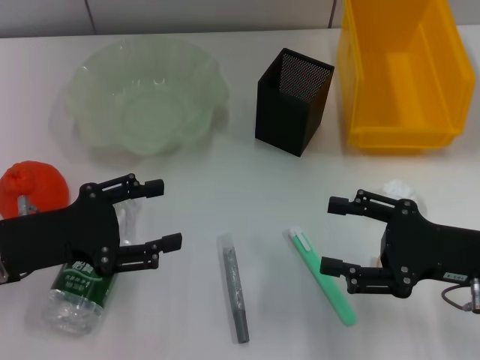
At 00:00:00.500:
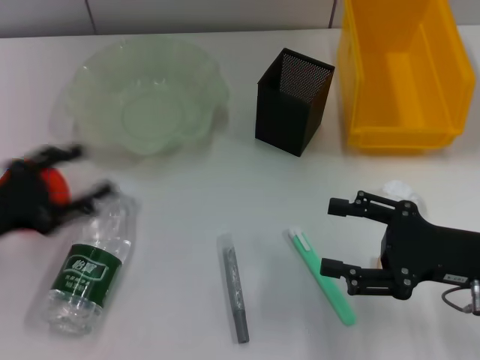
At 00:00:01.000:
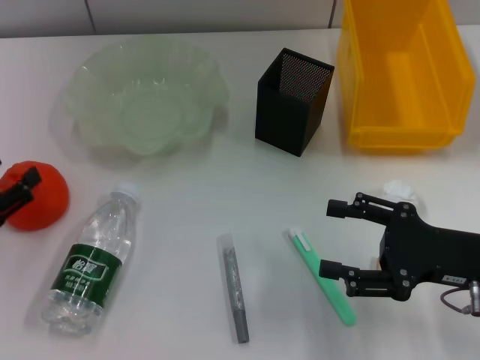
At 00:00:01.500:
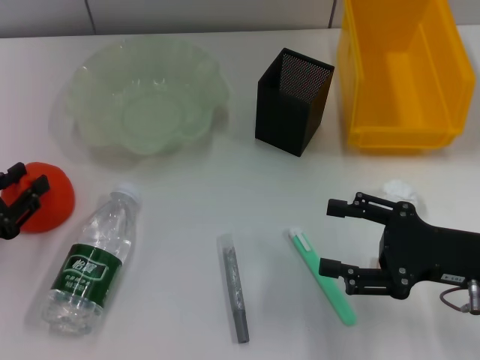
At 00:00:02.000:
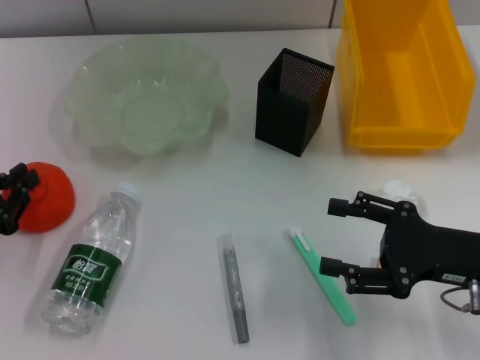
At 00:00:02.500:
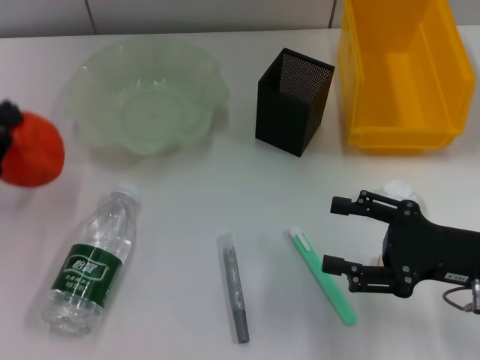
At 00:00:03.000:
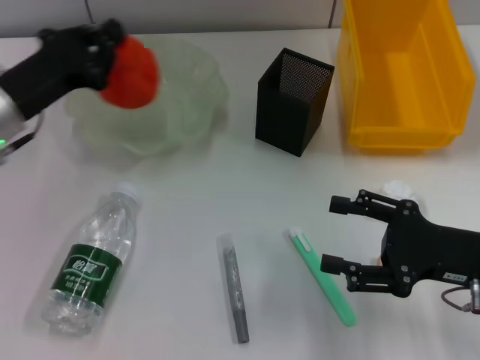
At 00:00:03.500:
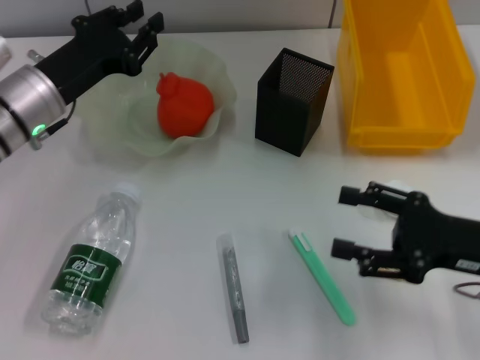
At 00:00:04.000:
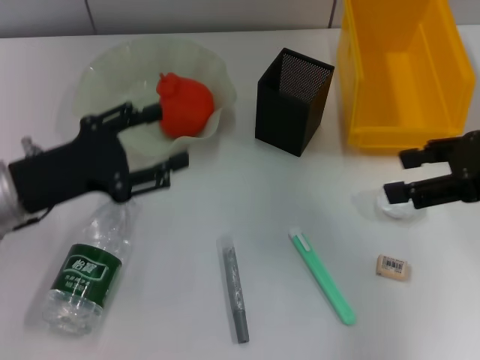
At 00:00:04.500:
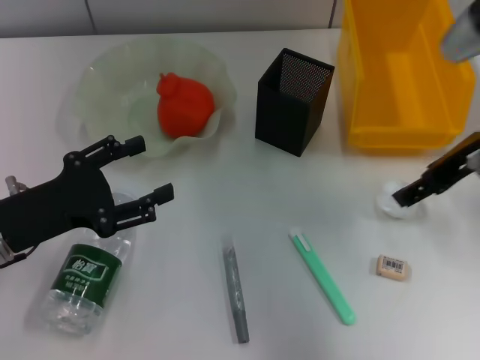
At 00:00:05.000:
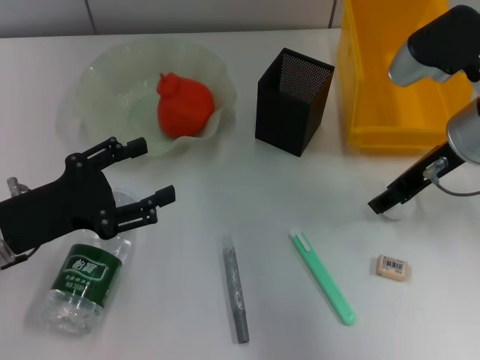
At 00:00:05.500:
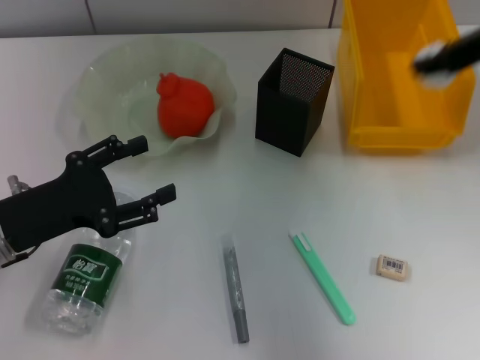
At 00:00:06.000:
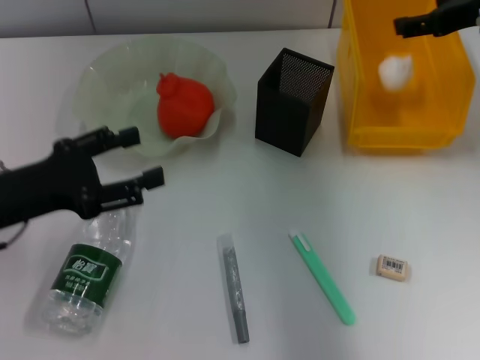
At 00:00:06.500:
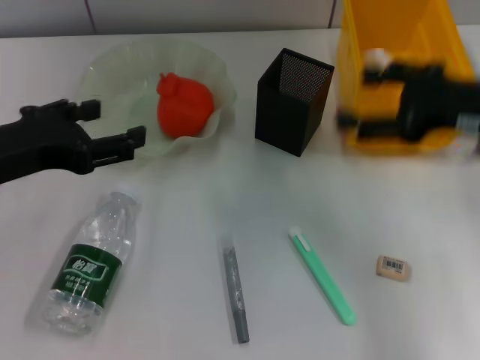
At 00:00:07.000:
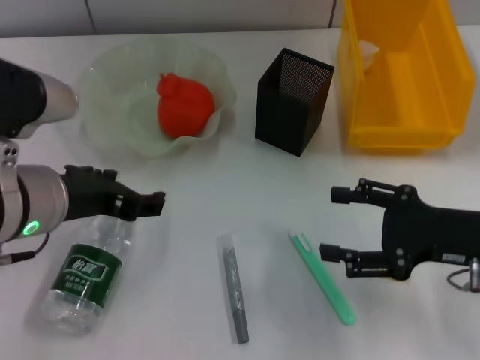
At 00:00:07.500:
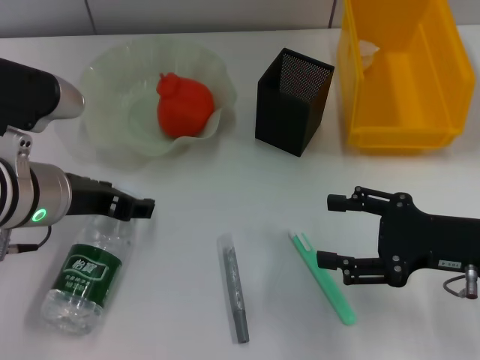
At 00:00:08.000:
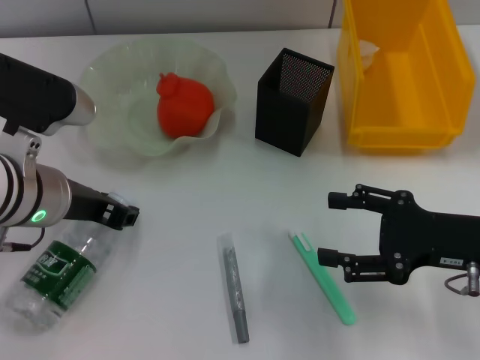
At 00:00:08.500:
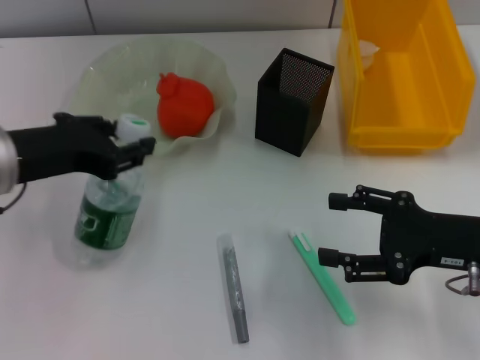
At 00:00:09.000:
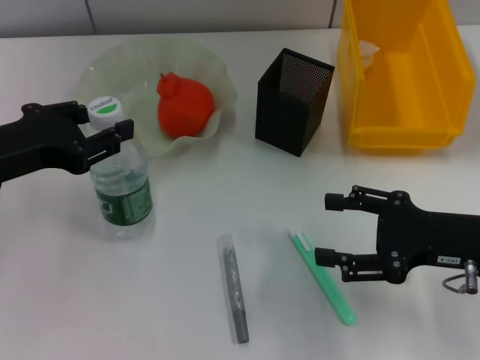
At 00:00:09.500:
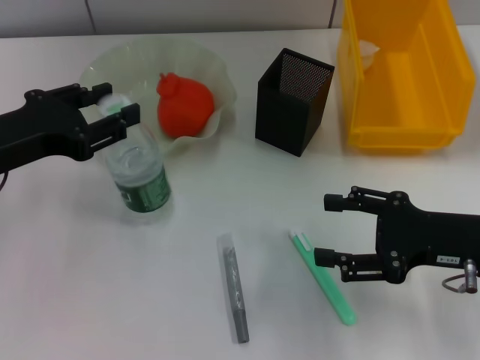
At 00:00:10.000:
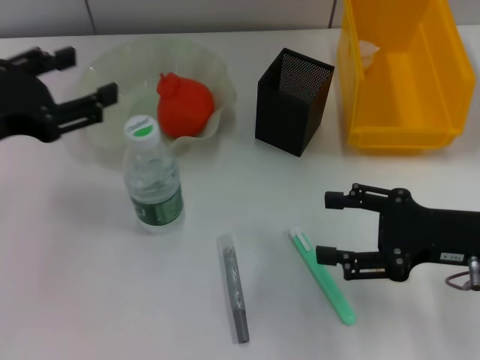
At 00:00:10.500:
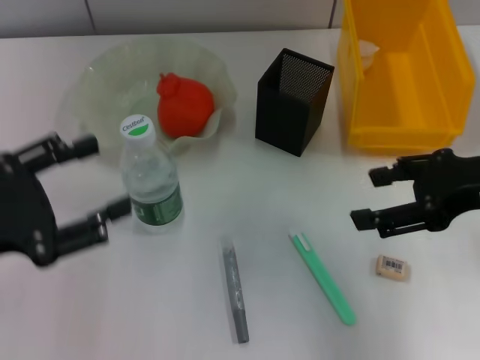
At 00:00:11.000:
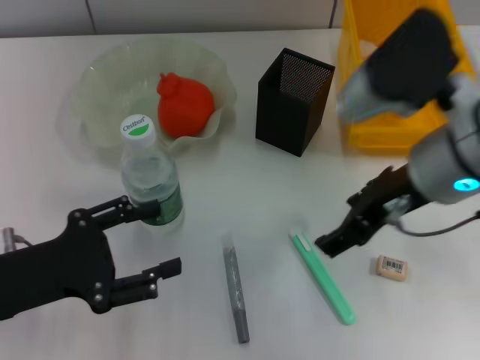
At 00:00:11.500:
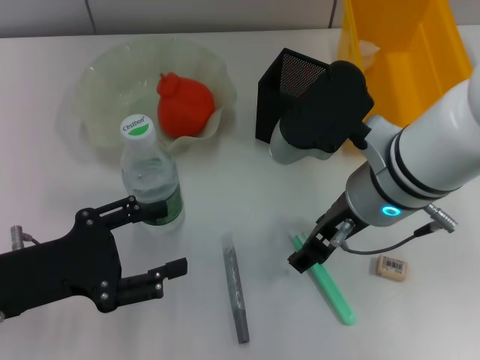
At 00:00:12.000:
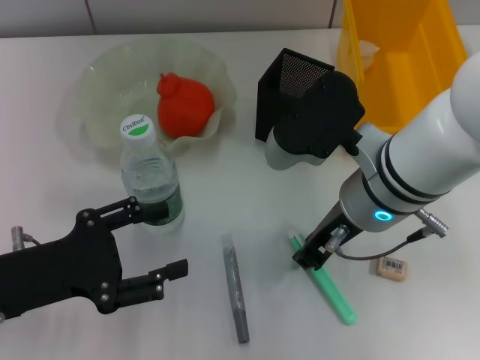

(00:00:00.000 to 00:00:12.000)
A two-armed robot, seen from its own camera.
Step, 00:00:00.000 - 00:00:01.500: Grab the orange with the left hand.
Step, 00:00:02.500 - 00:00:03.500: Place the orange into the fruit bowl with the left hand.
Step, 00:00:04.000 - 00:00:04.500: Grab the paper ball with the right hand.
Step, 00:00:05.000 - 00:00:06.000: Place the paper ball into the trash can with the right hand.
Step, 00:00:06.500 - 00:00:07.500: Grab the water bottle with the left hand.
Step, 00:00:08.000 - 00:00:09.500: Place the water bottle on the table with the left hand.
00:00:00.000 - 00:00:02.000: The left gripper travels to the left by some 10 cm, and closes up.
00:00:02.000 - 00:00:04.000: The left gripper goes some 10 cm to the right and forward, and opens, while the right gripper travels upward and forward by approximately 15 cm.
00:00:04.000 - 00:00:06.000: The right gripper travels forward by roughly 10 cm, and closes, then opens again.
00:00:06.000 - 00:00:08.000: The right gripper shifts approximately 20 cm backward and downward, while the left gripper travels to the right by approximately 10 cm.
00:00:08.000 - 00:00:10.000: The left gripper travels to the left and upward by roughly 10 cm.
00:00:10.000 - 00:00:12.000: The left gripper goes some 10 cm downward and backward; the right gripper goes about 15 cm to the left, and closes its fingers.

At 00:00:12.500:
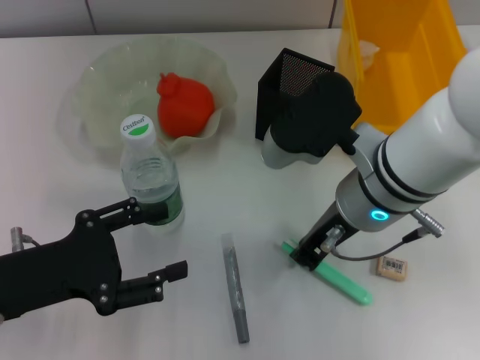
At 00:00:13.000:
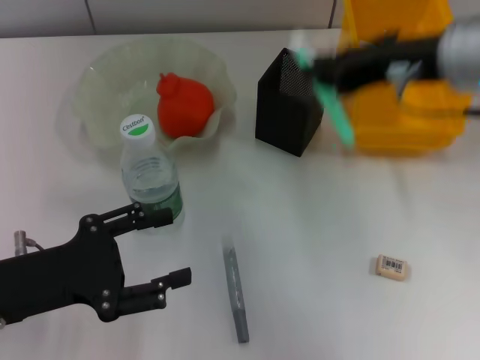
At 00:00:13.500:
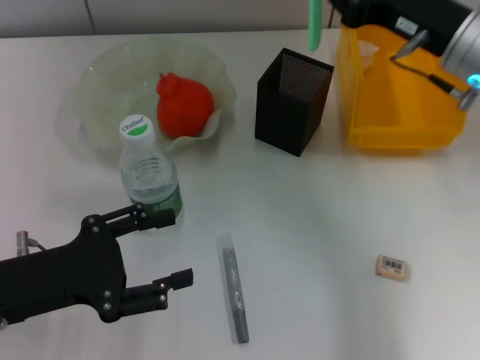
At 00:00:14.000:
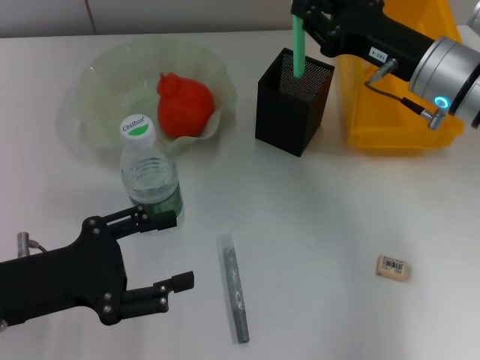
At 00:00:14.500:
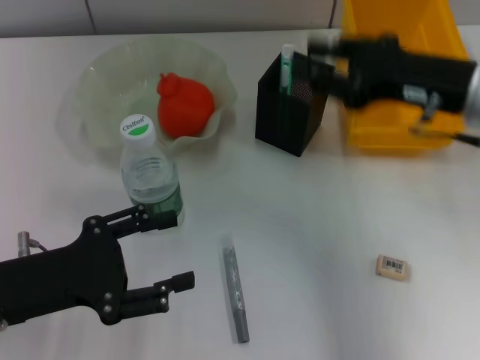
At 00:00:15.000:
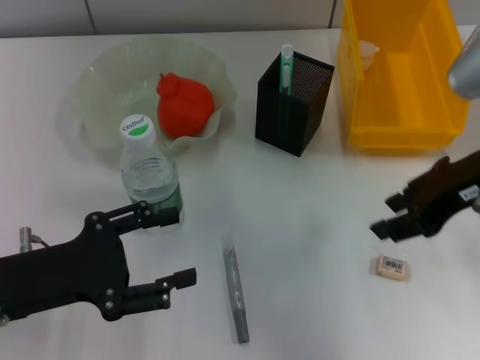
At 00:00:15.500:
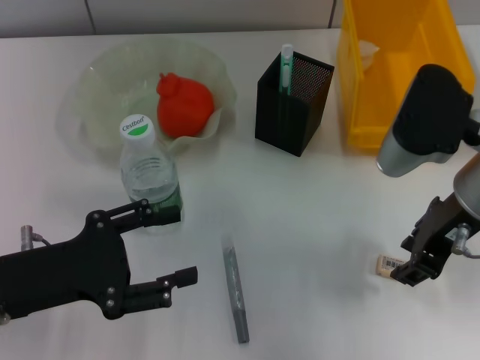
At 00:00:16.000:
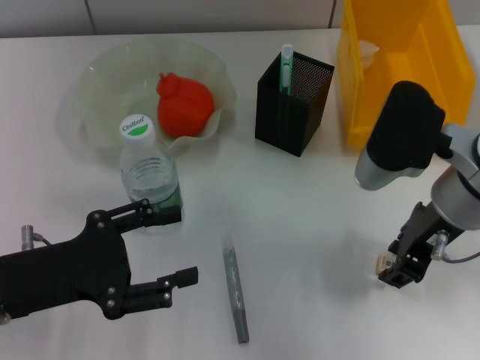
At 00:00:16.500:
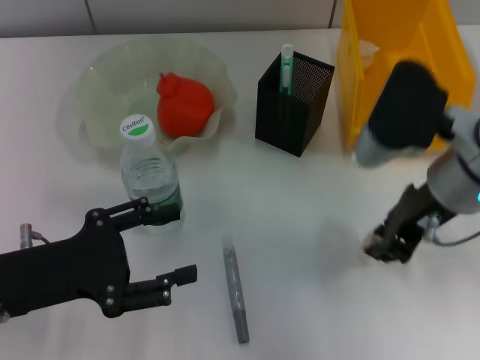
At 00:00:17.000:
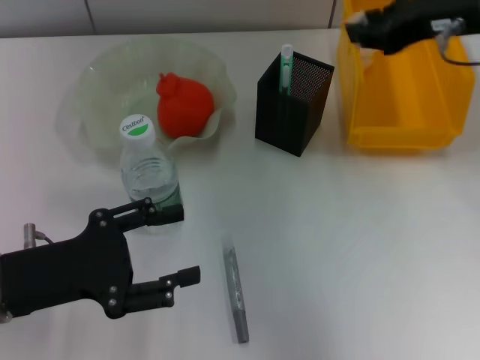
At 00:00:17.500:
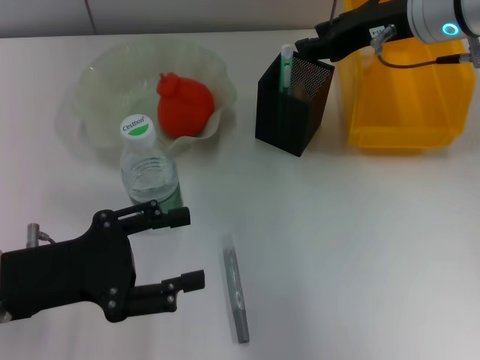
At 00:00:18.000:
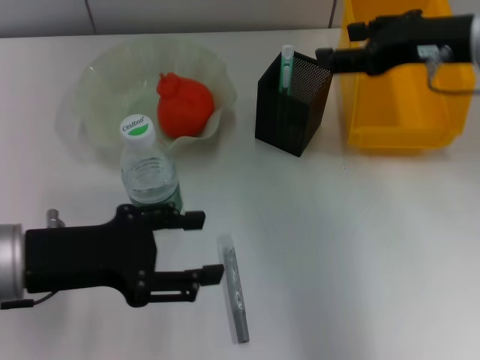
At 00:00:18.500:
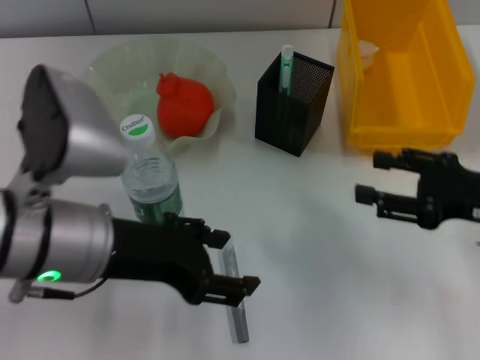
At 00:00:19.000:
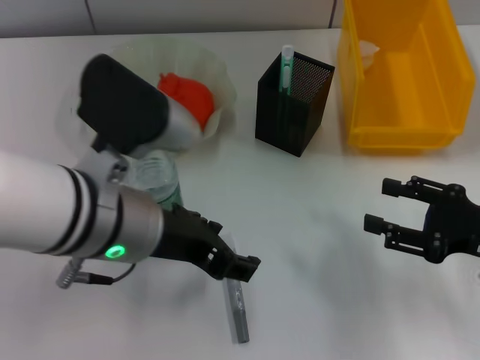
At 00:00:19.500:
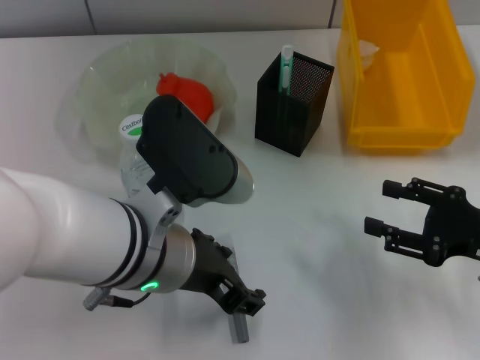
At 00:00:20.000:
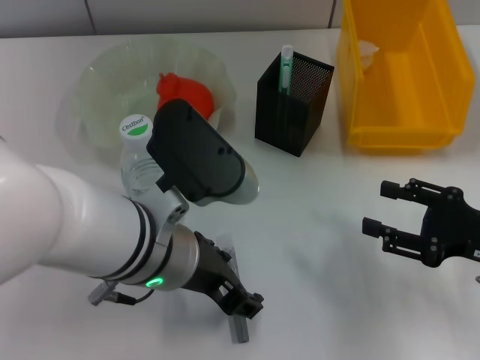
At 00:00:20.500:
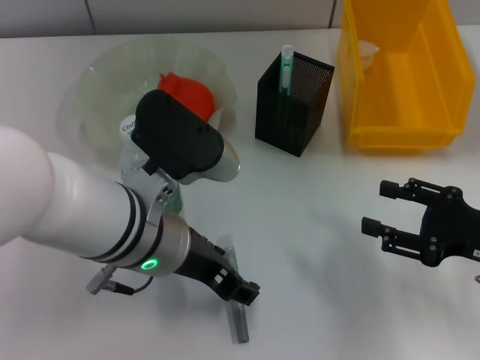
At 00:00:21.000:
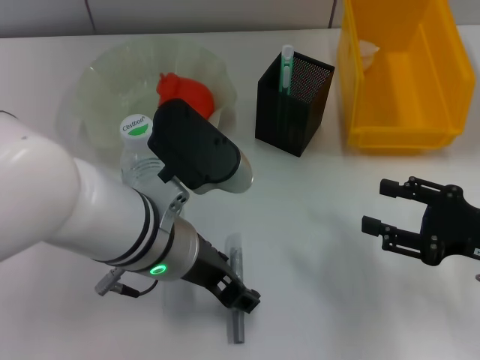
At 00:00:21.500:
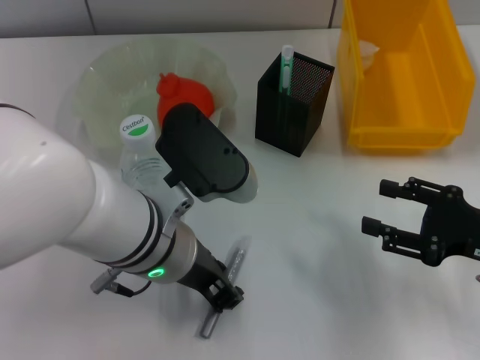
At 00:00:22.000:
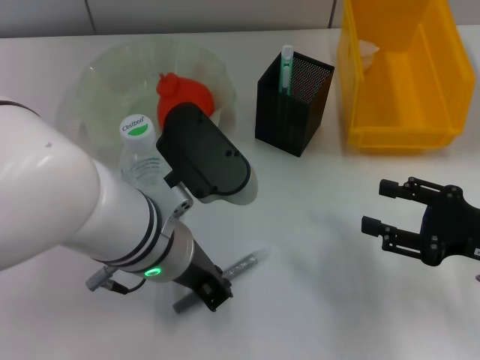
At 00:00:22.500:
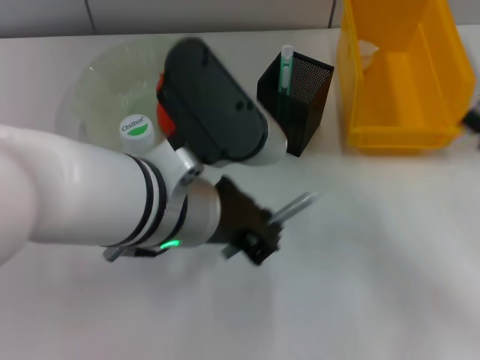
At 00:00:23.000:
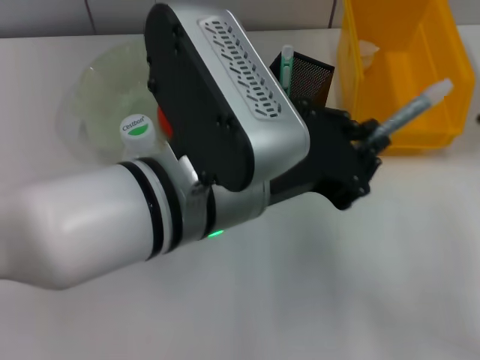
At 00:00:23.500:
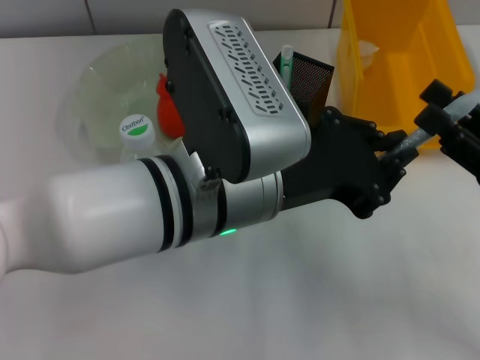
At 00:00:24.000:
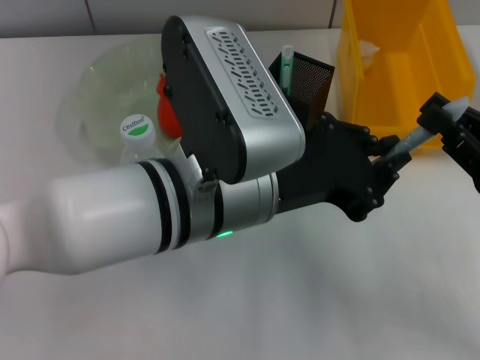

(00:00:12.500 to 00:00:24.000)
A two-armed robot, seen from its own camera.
Step, 00:00:12.500 - 00:00:14.000: Place the blue utility knife into the pen holder with the right hand.
Step, 00:00:14.500 - 00:00:16.000: Grab the eraser with the right hand.
Step, 00:00:16.500 - 00:00:17.500: Put the eraser into the pen holder with the right hand.
Step, 00:00:18.000 - 00:00:21.500: Grab the gray glue with the left hand.
00:00:12.500 - 00:00:14.500: The right gripper goes some 10 cm to the right.
00:00:14.500 - 00:00:16.500: The right gripper changes place by about 5 cm.
00:00:16.500 - 00:00:18.500: The left gripper shifts approximately 10 cm to the right and upward, while the right gripper goes about 15 cm to the right and downward, travels forward and back again, some 10 cm each way, and opens.
00:00:18.500 - 00:00:20.000: The left gripper heads to the right, covering approximately 10 cm.
00:00:20.000 - 00:00:22.000: The left gripper closes.
00:00:22.000 - 00:00:24.000: The left gripper goes about 5 cm upward, while the right gripper closes up.

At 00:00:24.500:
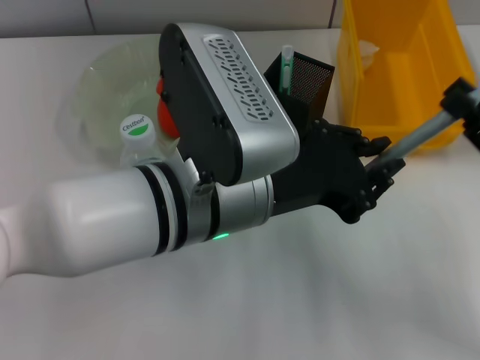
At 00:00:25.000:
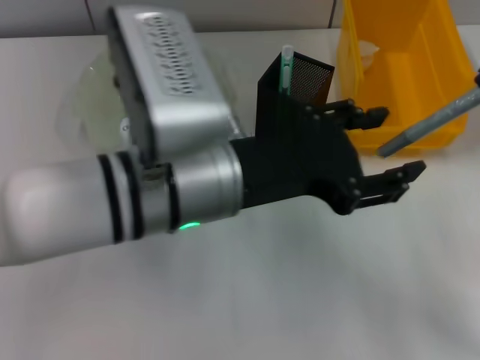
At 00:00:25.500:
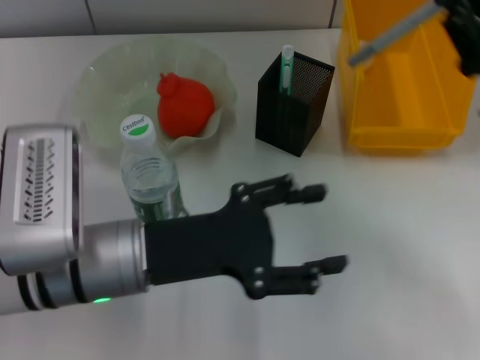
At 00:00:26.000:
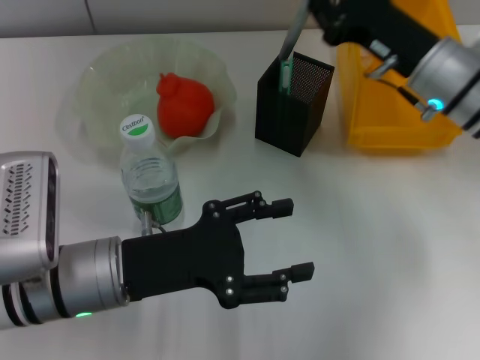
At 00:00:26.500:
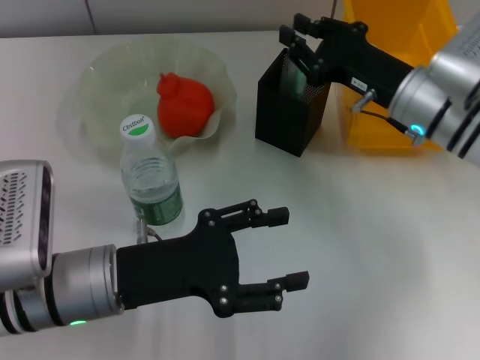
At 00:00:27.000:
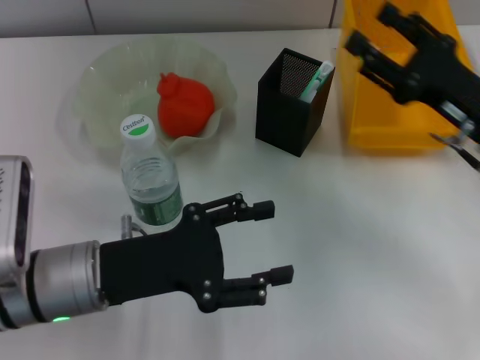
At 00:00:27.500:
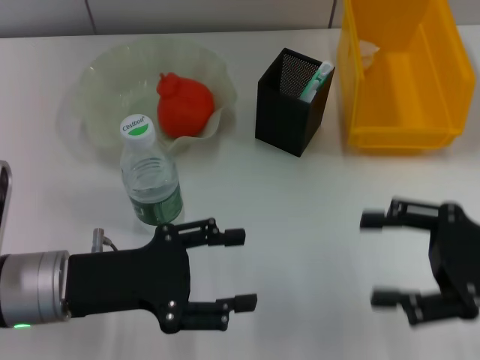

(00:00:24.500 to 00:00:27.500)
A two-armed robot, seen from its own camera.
Step, 00:00:25.000 - 00:00:26.500: Place the gray glue into the pen holder with the right hand.
00:00:24.500 - 00:00:26.000: The right gripper shifts approximately 20 cm forward and to the left. Meanwhile the left gripper is displaced to the left and downward by about 15 cm, and opens.
00:00:26.000 - 00:00:27.500: The right gripper shifts some 20 cm backward and to the right, and opens.
